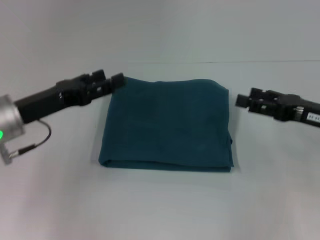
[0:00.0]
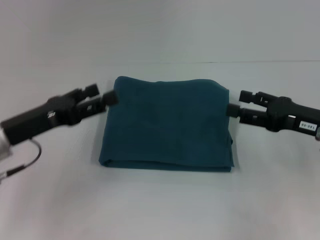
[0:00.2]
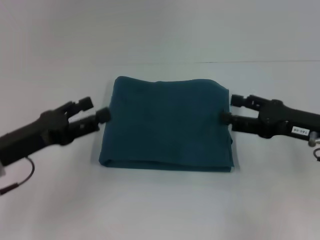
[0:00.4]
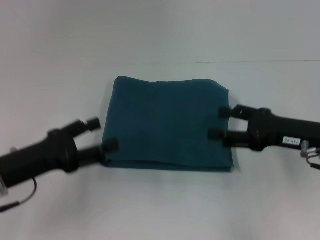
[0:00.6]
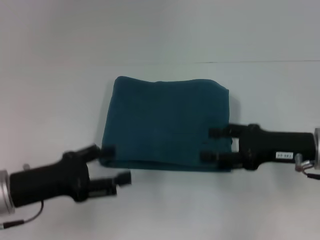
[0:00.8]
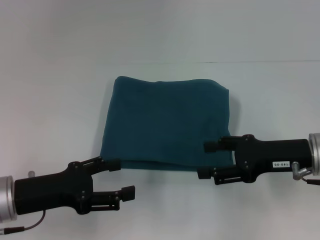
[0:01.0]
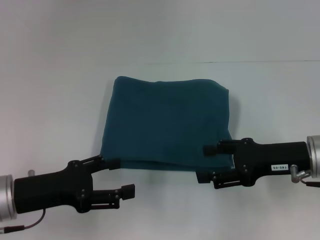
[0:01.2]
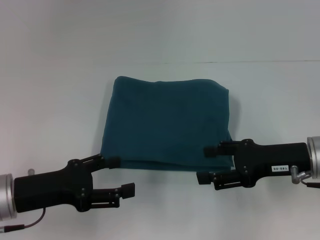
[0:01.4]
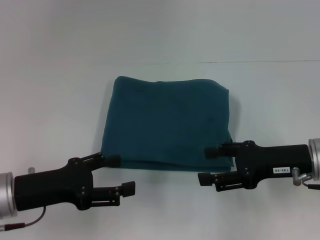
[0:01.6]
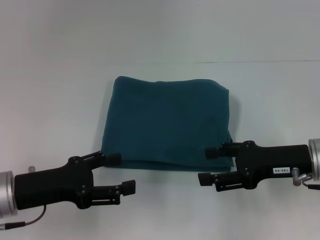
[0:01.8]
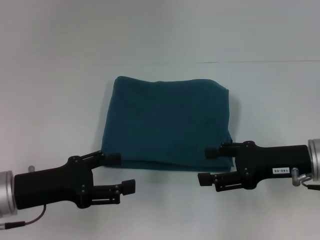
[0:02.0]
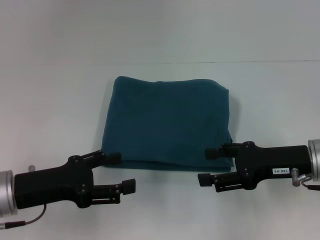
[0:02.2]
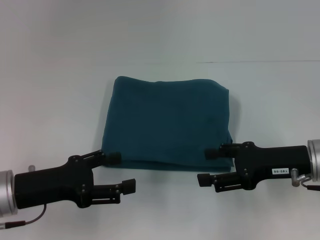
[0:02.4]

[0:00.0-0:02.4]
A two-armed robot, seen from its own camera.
0:00.0 to 0:01.2: The left gripper heads backward, covering about 10 cm. Meanwhile the right gripper travels to the left by approximately 5 cm.
0:01.2 to 0:02.4: Neither gripper changes place.

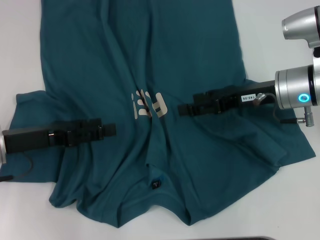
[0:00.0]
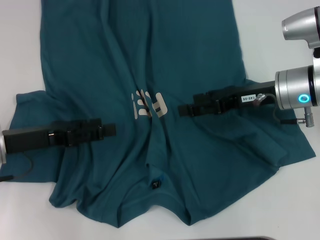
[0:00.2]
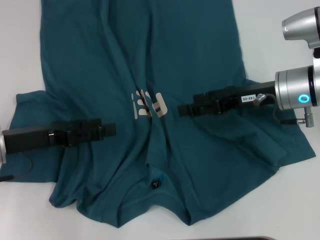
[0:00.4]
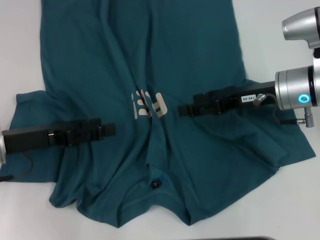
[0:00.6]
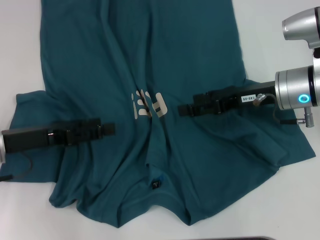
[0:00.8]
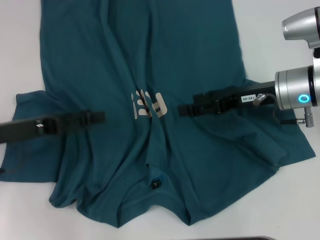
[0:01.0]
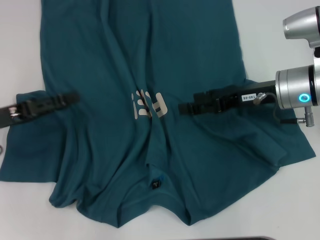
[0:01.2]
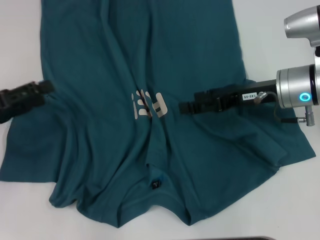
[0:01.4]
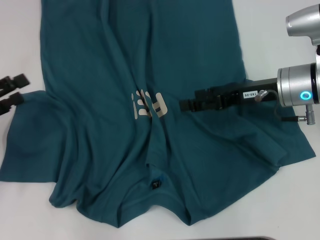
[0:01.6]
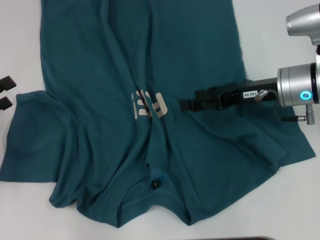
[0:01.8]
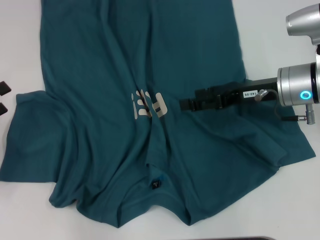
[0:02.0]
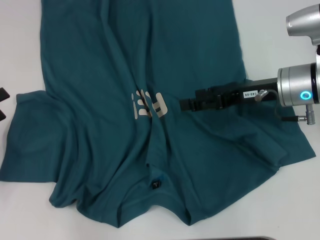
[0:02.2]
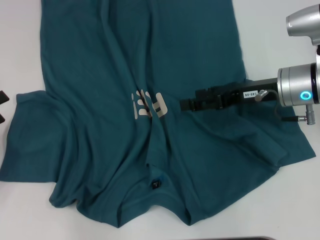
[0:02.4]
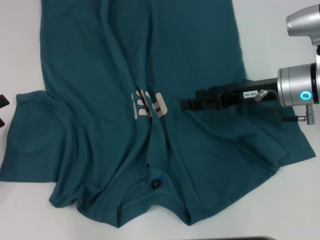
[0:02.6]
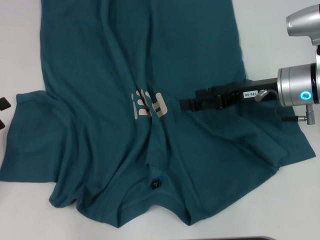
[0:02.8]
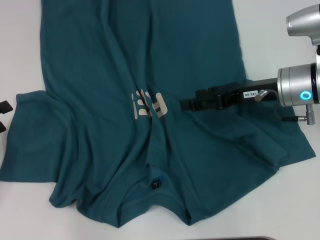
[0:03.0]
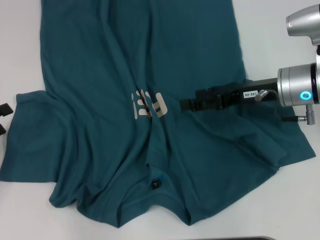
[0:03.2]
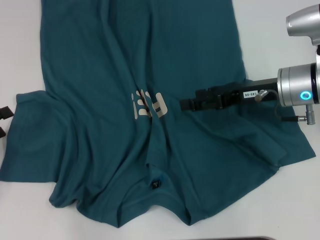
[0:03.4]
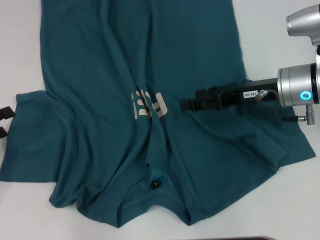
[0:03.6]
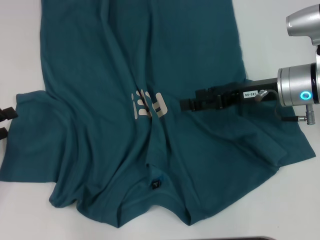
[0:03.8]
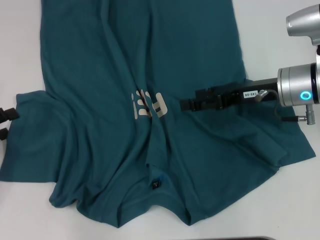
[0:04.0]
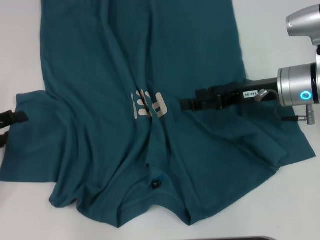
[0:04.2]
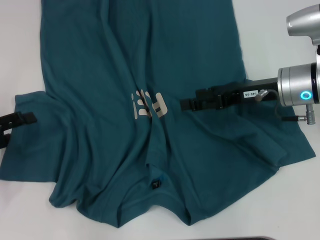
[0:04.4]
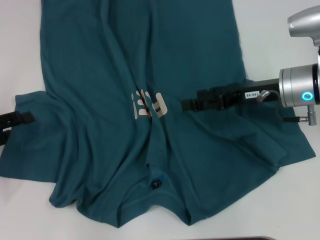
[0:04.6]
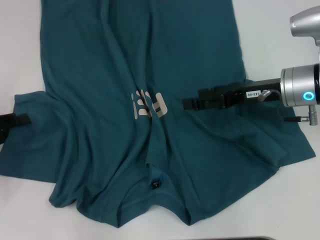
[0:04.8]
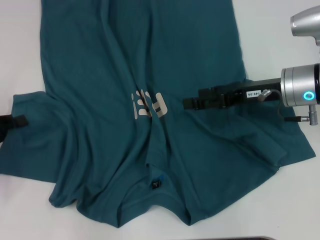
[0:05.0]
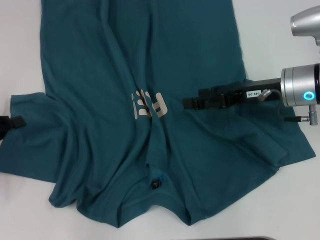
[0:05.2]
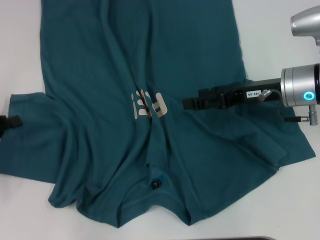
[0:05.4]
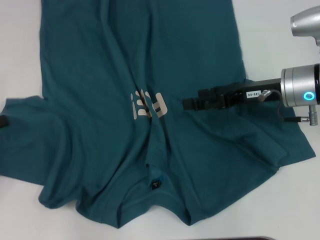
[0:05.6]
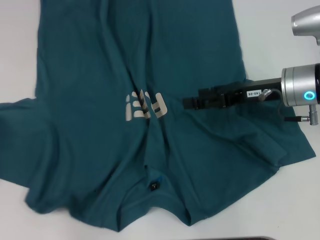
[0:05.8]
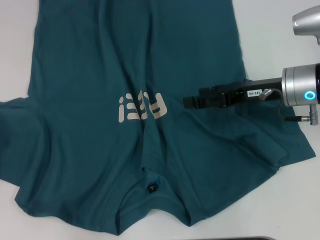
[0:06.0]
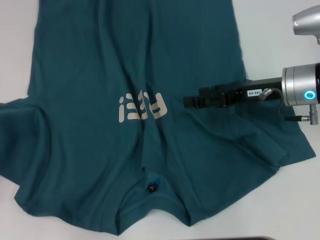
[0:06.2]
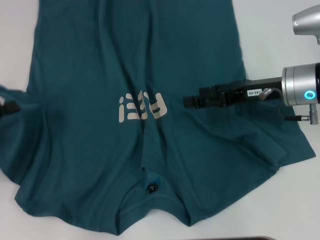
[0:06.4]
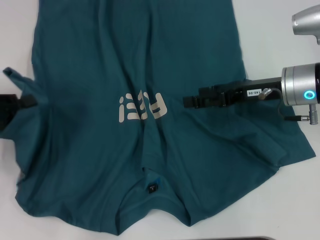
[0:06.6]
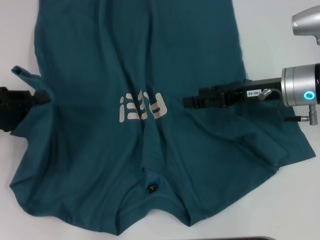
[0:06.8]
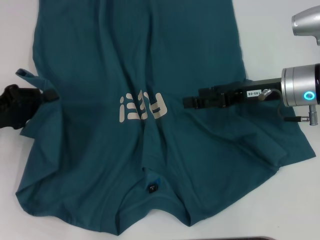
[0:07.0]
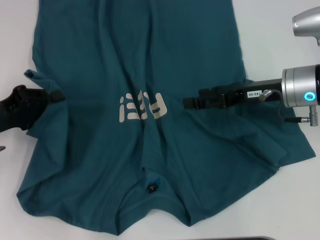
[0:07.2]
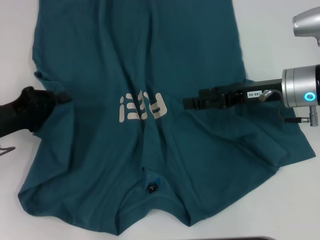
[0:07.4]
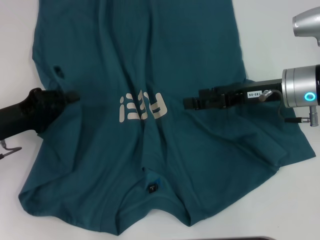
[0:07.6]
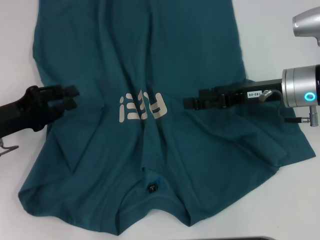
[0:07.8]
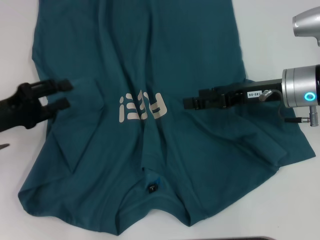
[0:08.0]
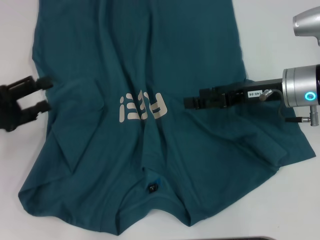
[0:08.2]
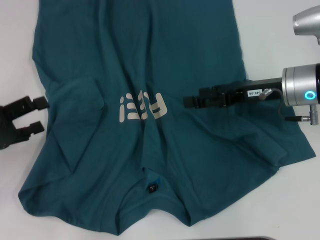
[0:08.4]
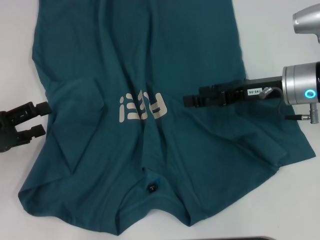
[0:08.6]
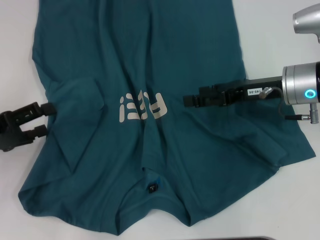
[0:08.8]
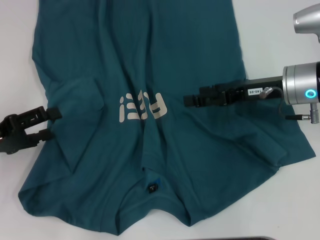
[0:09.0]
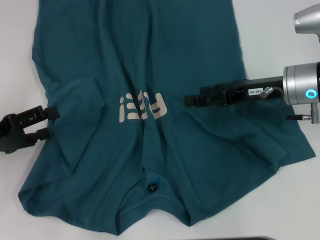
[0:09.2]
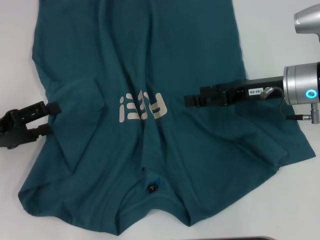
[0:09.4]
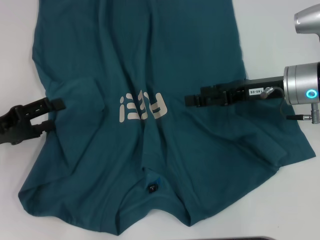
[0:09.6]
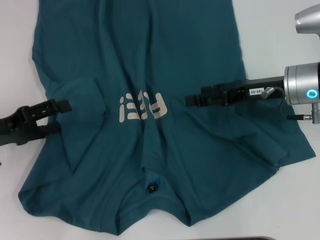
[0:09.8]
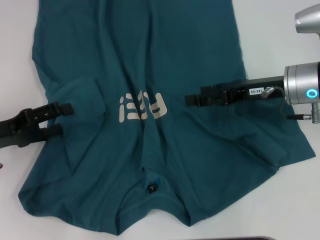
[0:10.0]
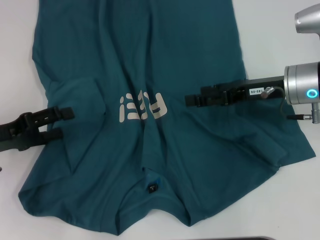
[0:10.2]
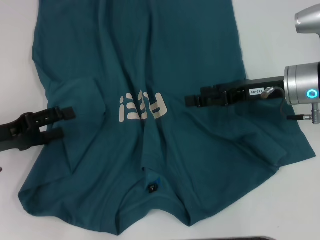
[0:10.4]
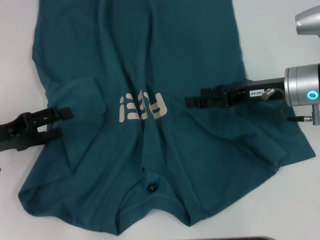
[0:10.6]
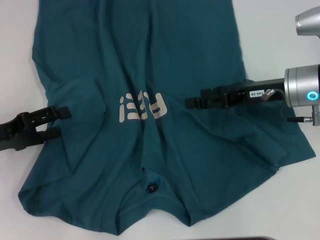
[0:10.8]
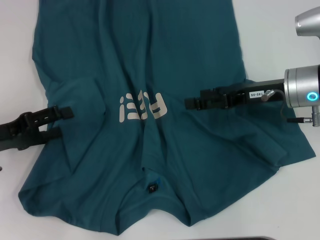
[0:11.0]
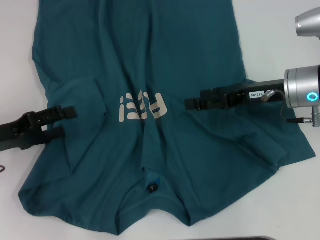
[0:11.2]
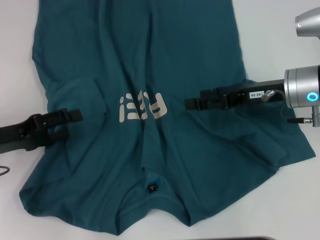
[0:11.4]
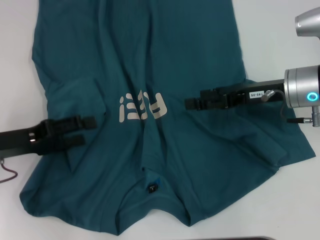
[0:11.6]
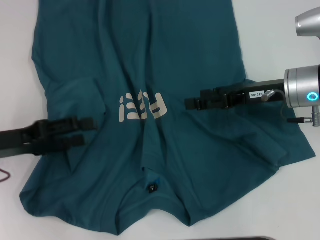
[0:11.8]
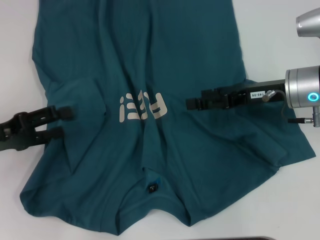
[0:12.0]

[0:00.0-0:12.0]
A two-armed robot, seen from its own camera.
0:00.0 to 0:01.6: The left gripper goes roughly 10 cm to the left.
0:01.6 to 0:04.4: The grippers make only small movements.
0:04.4 to 0:06.0: The left gripper changes place by approximately 5 cm, and closes up.
0:06.0 to 0:07.6: The left gripper moves to the right, approximately 10 cm.
0:07.6 to 0:09.0: The left gripper opens.
0:09.0 to 0:12.0: The grippers move only a little.

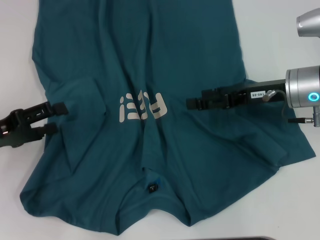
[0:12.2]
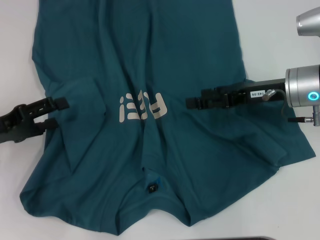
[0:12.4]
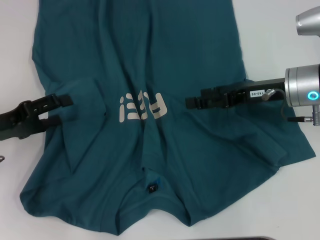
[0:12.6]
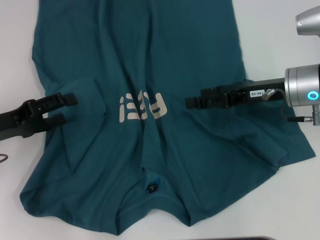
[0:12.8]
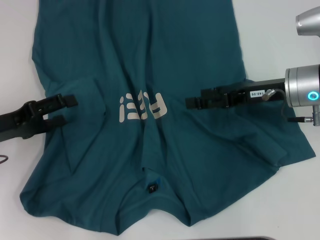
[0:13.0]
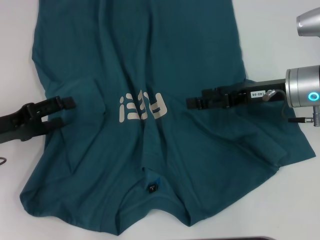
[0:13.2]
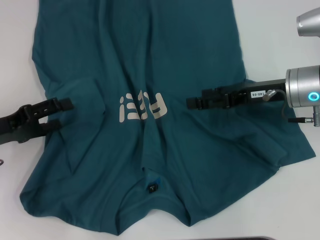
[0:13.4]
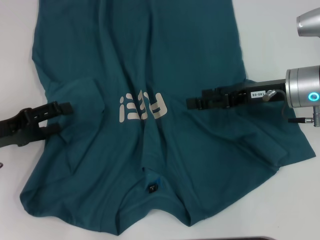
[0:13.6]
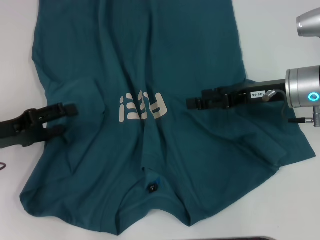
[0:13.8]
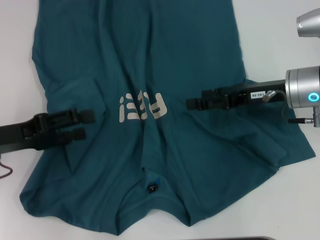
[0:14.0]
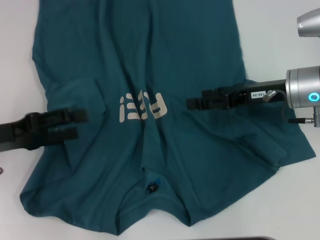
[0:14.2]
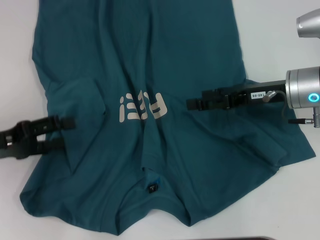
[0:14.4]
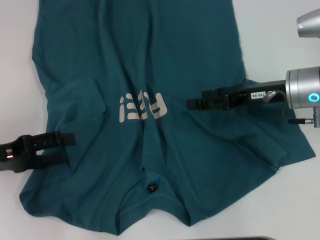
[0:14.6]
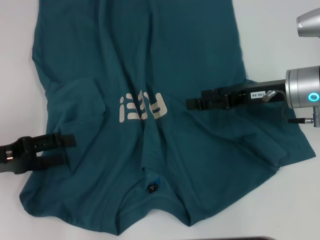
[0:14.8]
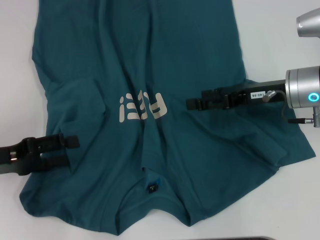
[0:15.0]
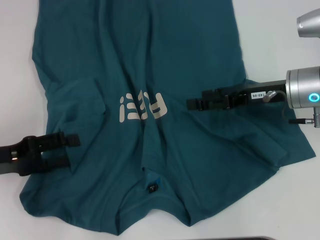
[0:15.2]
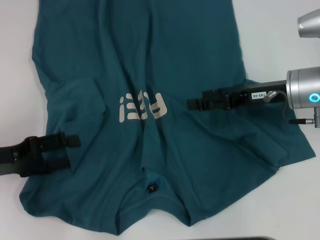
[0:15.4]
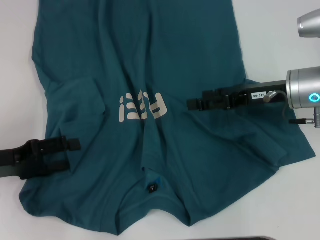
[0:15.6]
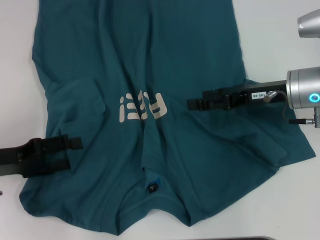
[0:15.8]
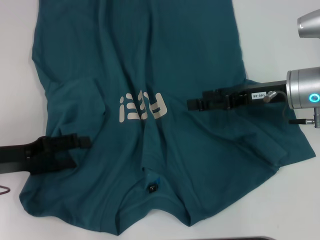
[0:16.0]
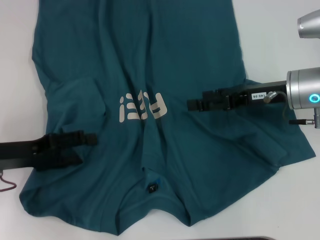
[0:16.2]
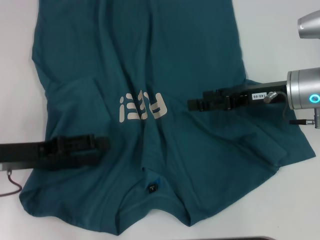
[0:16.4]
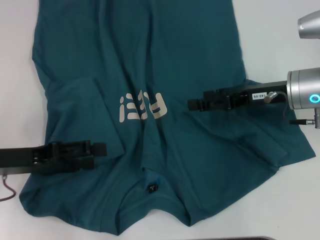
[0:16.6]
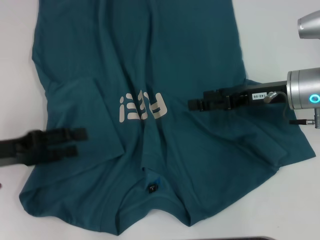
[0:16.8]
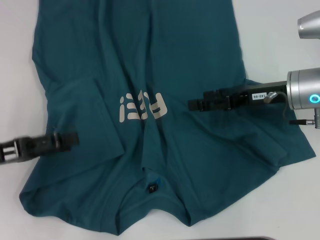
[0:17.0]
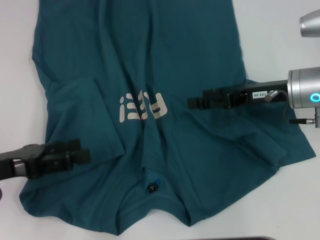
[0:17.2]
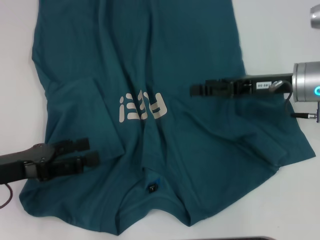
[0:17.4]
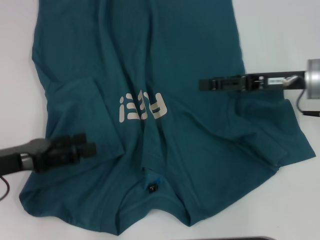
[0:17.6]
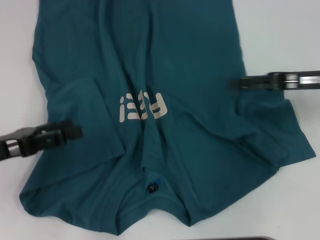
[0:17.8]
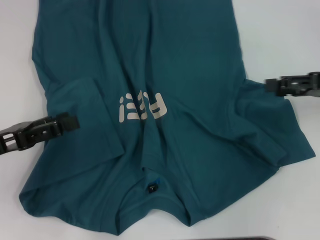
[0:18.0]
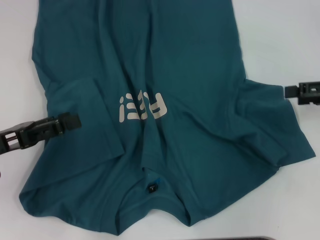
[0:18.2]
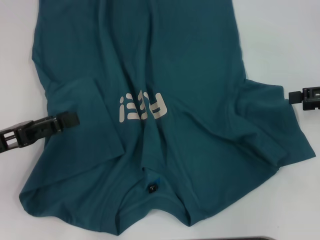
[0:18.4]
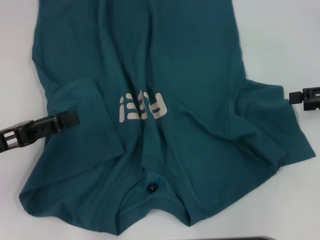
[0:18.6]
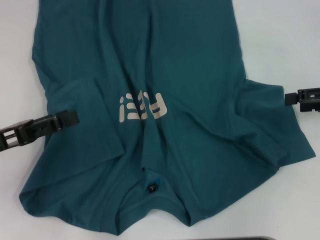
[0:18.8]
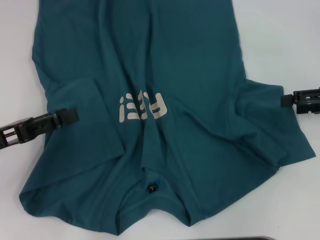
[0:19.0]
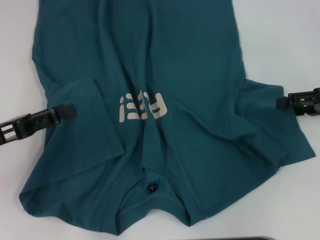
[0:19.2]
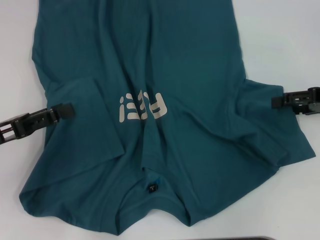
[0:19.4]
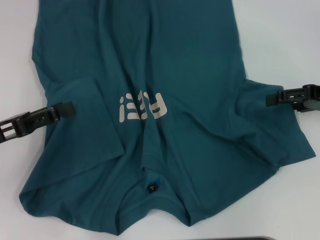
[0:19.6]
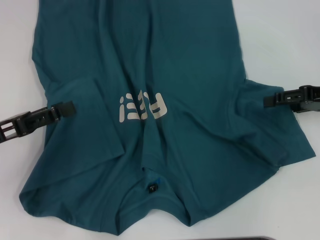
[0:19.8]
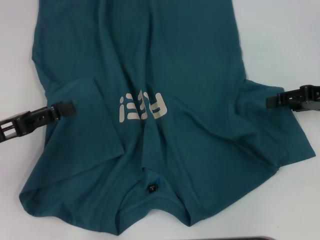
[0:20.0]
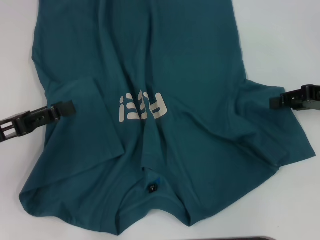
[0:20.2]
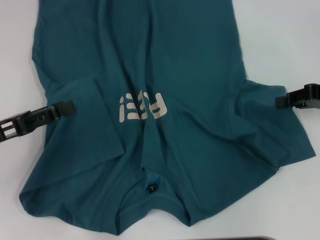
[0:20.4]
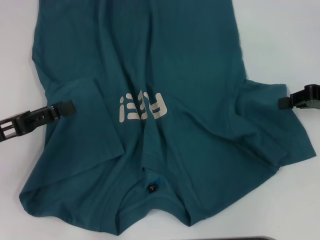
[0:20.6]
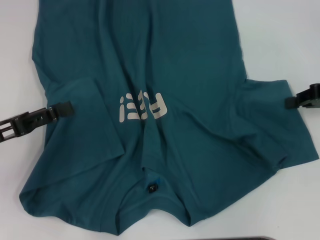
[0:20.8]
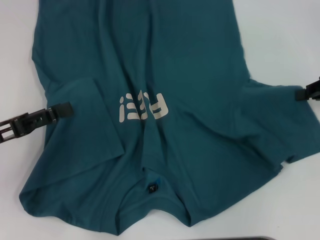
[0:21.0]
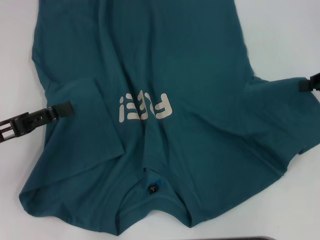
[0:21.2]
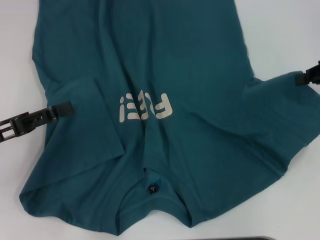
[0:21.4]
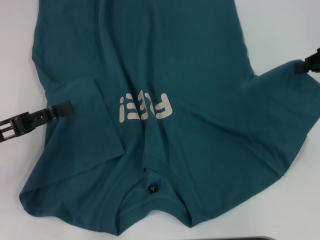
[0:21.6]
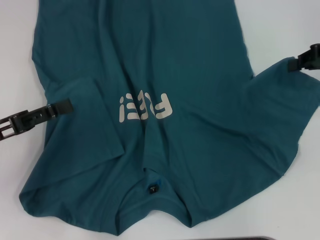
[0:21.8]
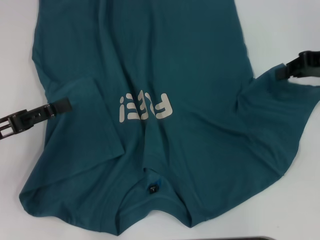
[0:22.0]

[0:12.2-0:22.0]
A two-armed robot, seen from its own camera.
Step, 0:12.2 to 0:16.4: Fold the bottom left sleeve with your left hand.
0:13.6 to 0:16.4: The grippers make only small movements.
0:16.4 to 0:17.8: The right gripper moves to the right, roughly 5 cm.
0:17.8 to 0:19.2: The right gripper moves to the right, about 5 cm.
0:19.2 to 0:20.6: The right gripper closes.
0:20.6 to 0:22.0: The right gripper ends up some 5 cm from where it was.
